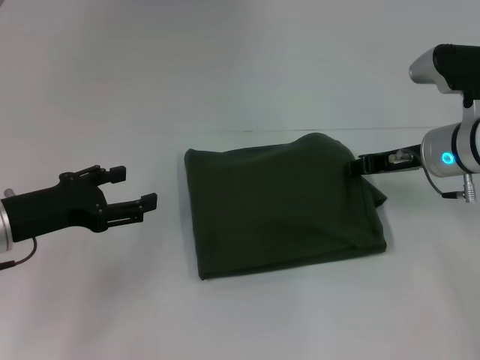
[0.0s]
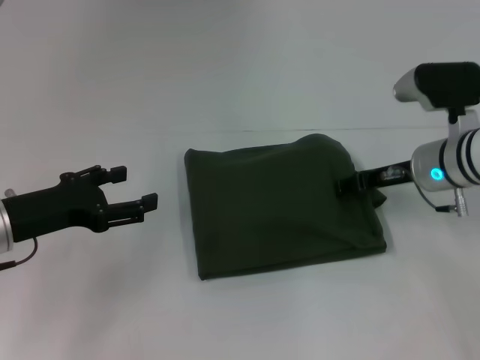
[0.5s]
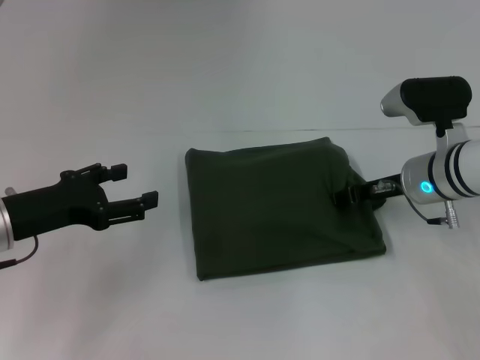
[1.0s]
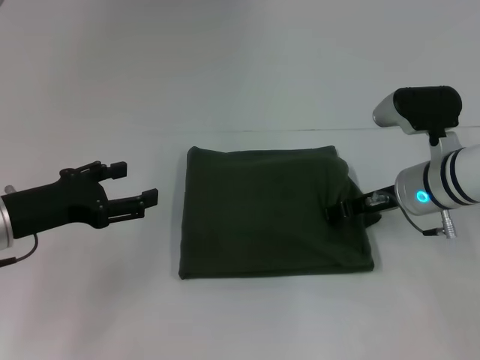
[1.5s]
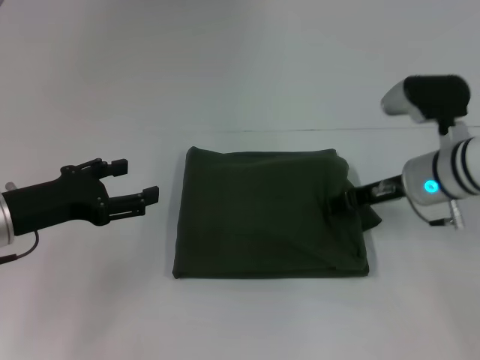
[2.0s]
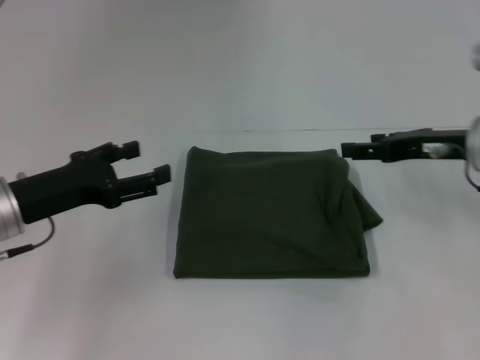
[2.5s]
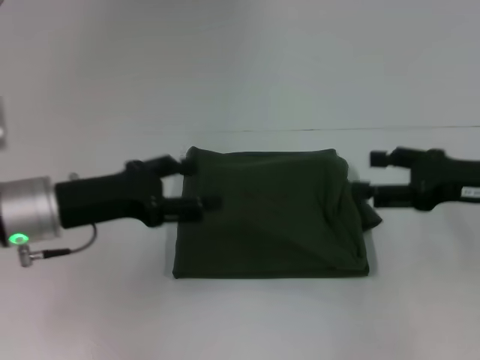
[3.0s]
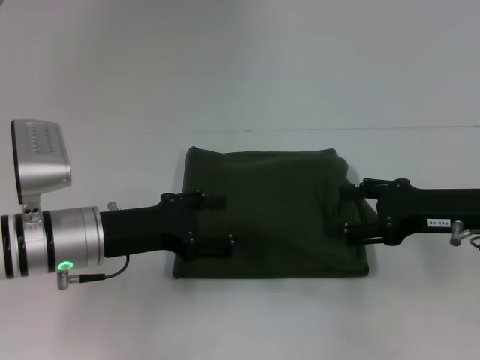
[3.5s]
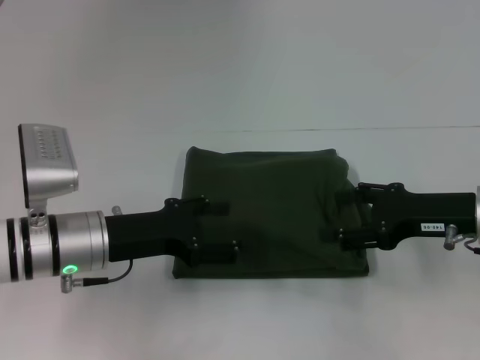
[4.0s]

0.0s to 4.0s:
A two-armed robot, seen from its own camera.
0.0s to 2.0s: The right gripper opens its fingers.
2.0s to 4.0s: The right gripper travels backward and to the right by roughly 10 cm, and opens its fingers. Meanwhile the left gripper moves to the right, about 10 cm.

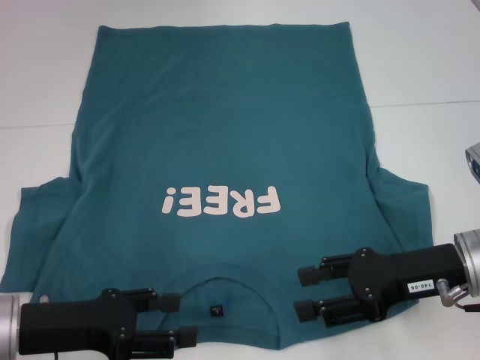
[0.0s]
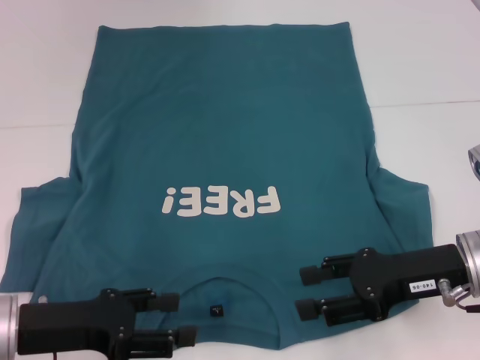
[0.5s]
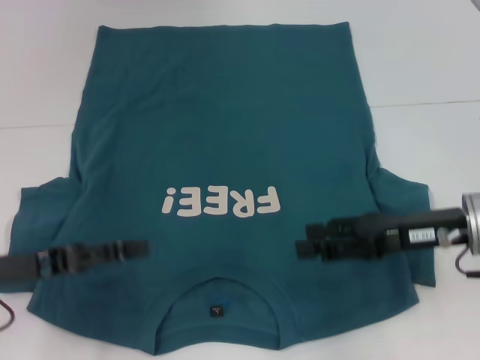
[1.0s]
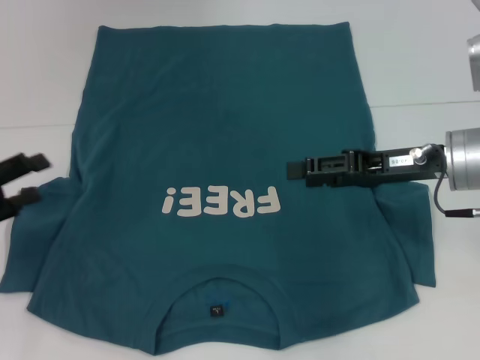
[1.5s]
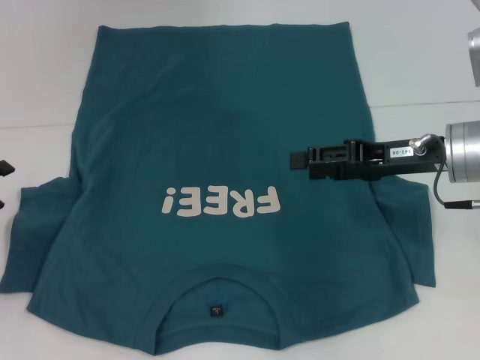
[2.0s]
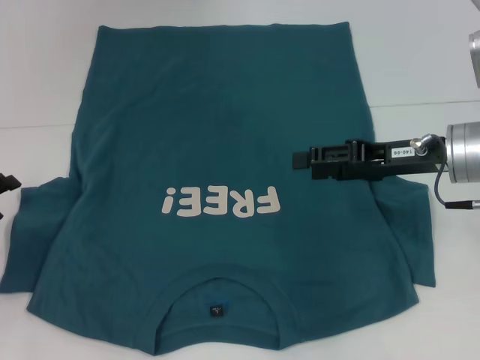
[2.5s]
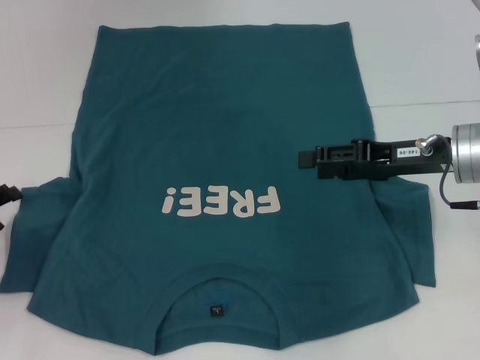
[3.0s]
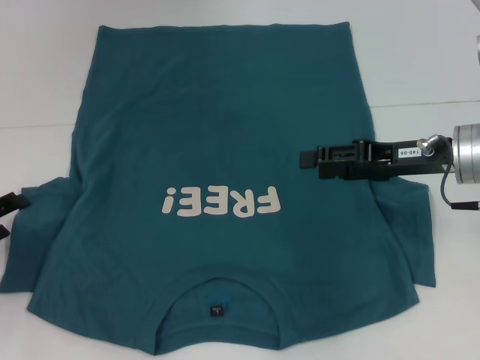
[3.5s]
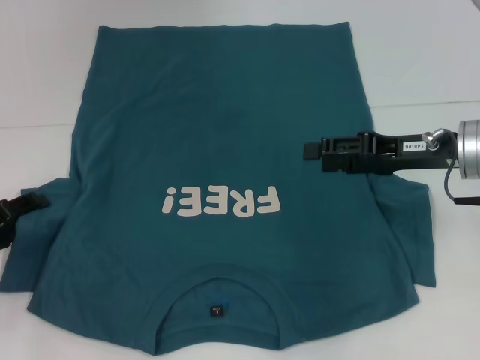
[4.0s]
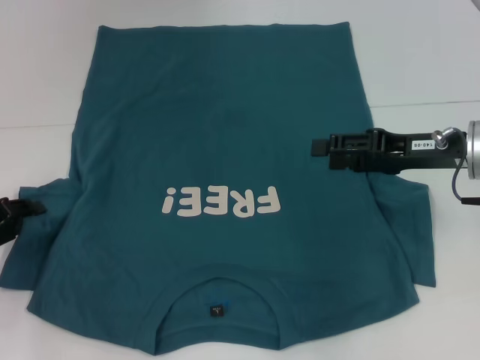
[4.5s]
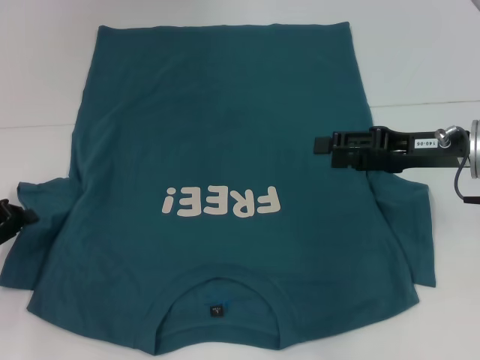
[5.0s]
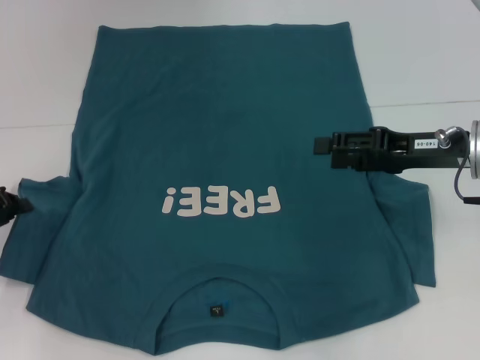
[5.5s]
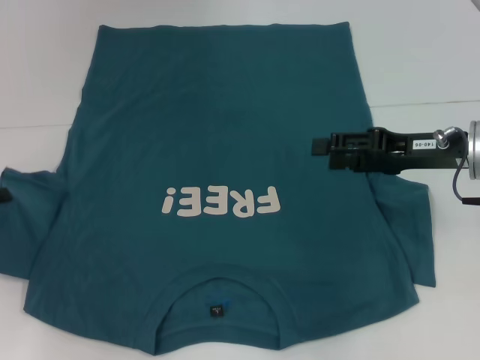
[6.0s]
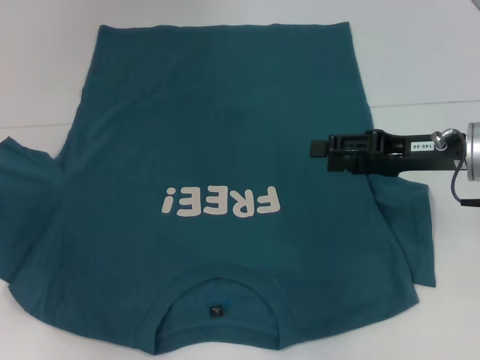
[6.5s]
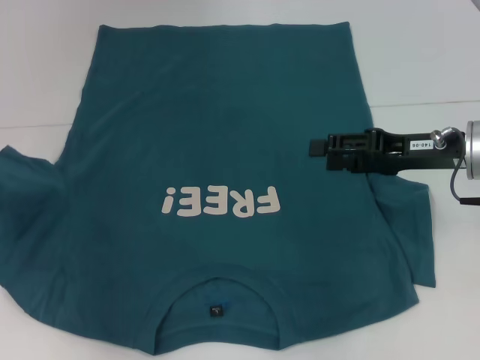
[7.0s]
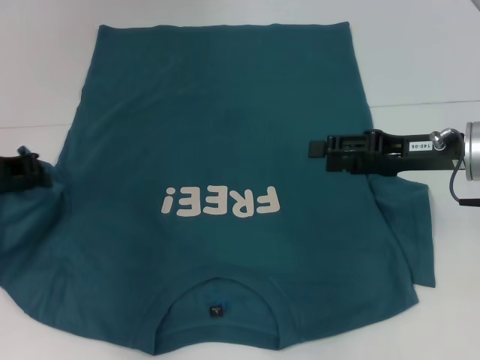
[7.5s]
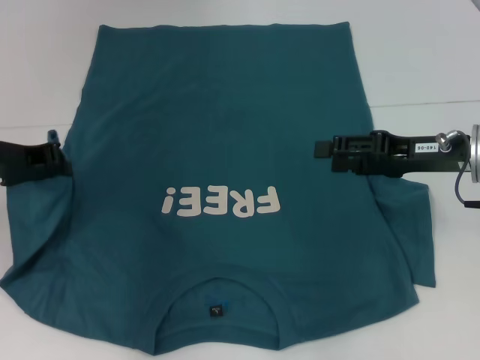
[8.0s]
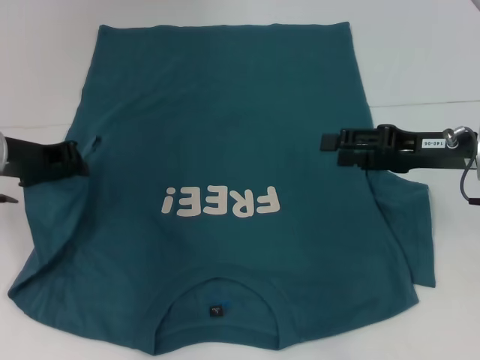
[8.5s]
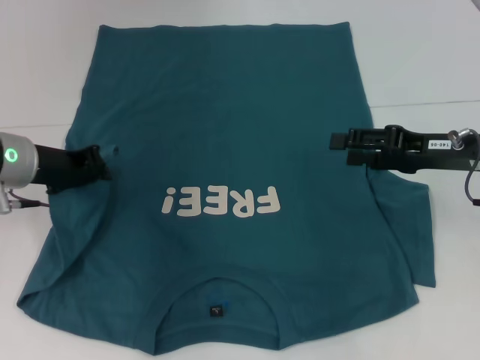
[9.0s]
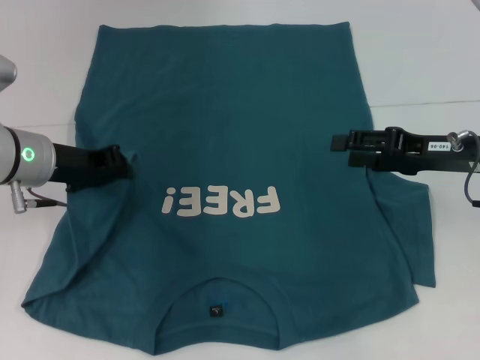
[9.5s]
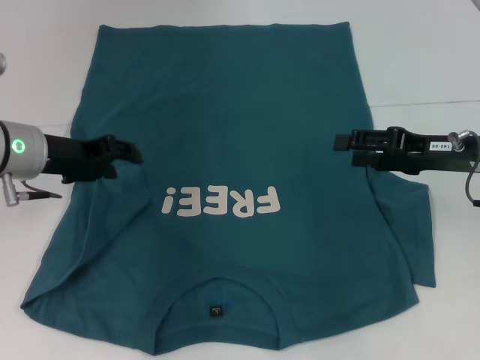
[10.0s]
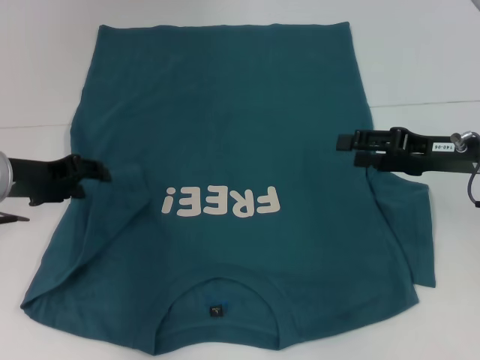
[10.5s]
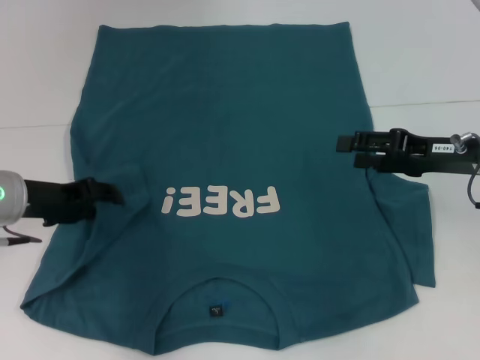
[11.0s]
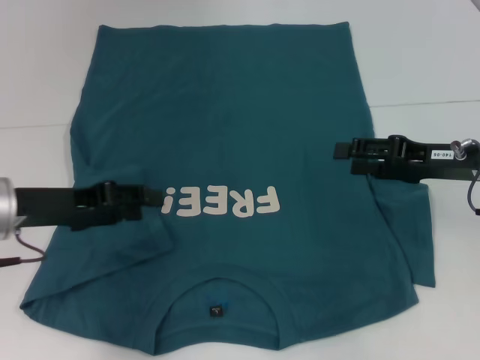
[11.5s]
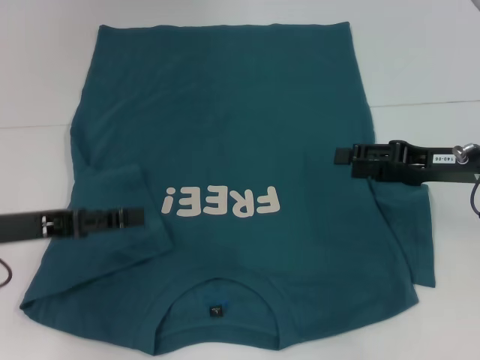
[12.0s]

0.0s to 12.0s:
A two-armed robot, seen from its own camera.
Step, 0.0s to 11.0s: Fold the bottom left sleeve with your left hand.
0.0s to 2.0s: The left gripper heads to the left and forward, covering some 15 cm. The right gripper heads forward, covering approximately 10 cm.
2.0s to 4.0s: The grippers stay close to where they were, moving slightly.
4.0s to 6.0s: The left gripper shifts by roughly 5 cm, and closes its fingers.
6.0s to 8.0s: The left gripper moves to the right and upward, roughly 10 cm.
8.0s to 10.0s: The left gripper opens.
10.0s to 12.0s: The left gripper travels backward by some 10 cm.

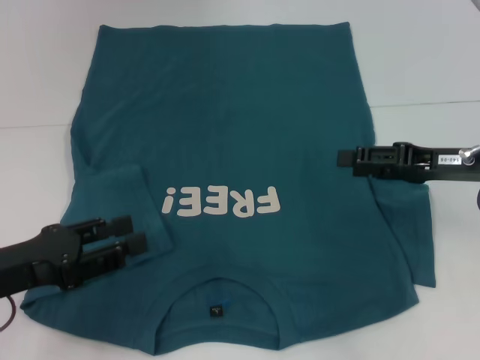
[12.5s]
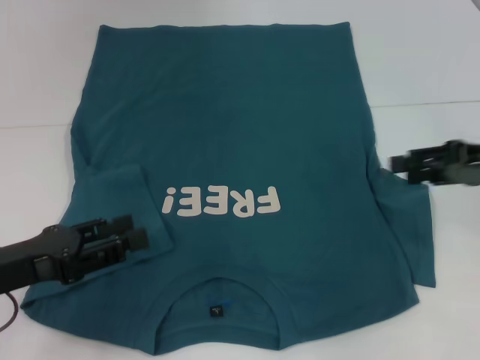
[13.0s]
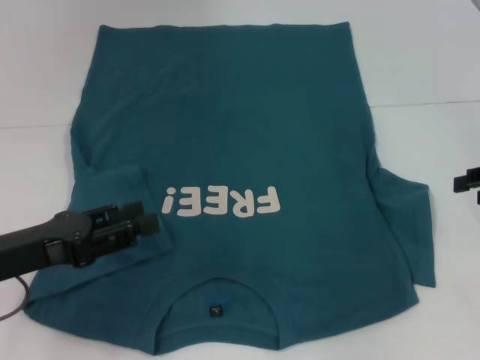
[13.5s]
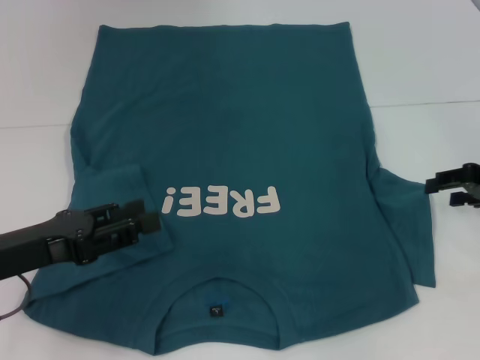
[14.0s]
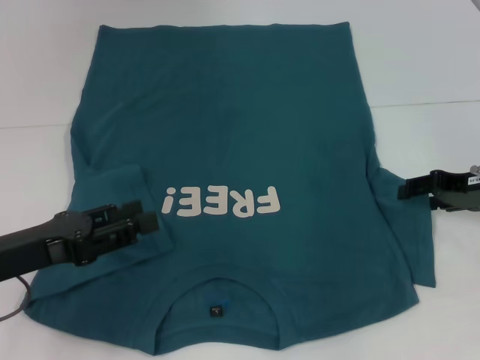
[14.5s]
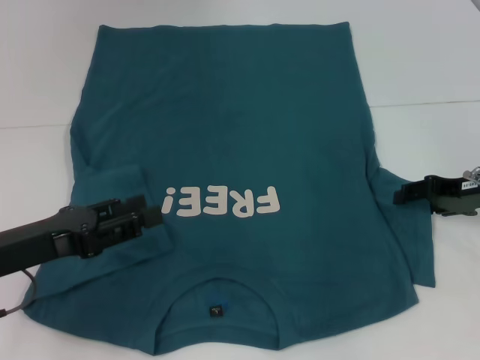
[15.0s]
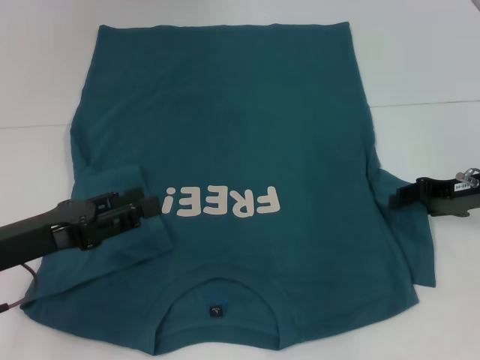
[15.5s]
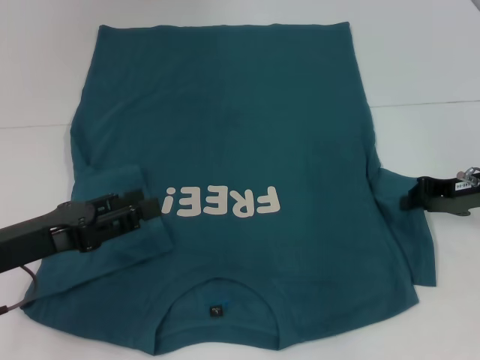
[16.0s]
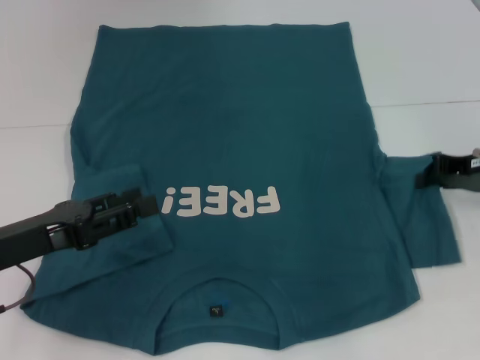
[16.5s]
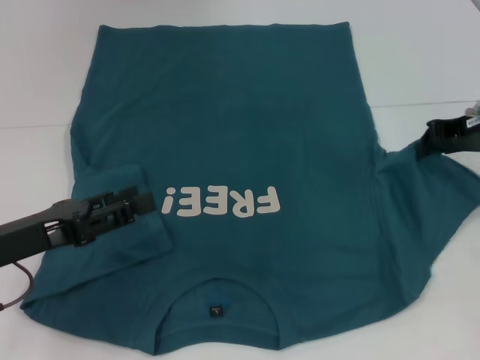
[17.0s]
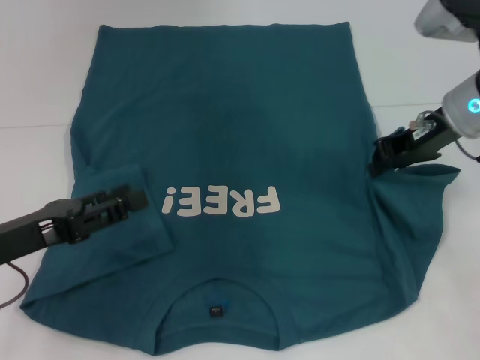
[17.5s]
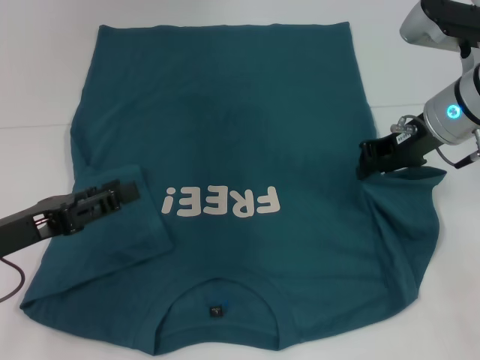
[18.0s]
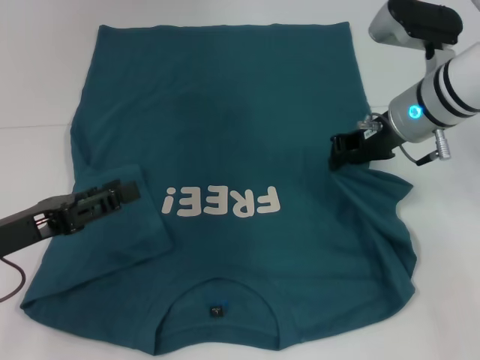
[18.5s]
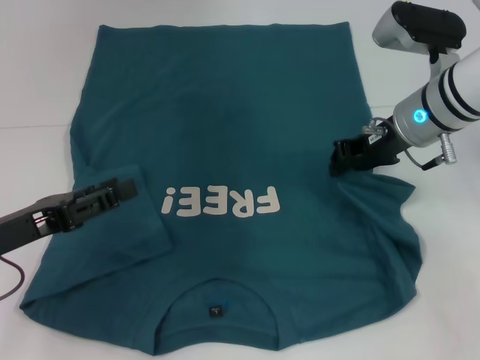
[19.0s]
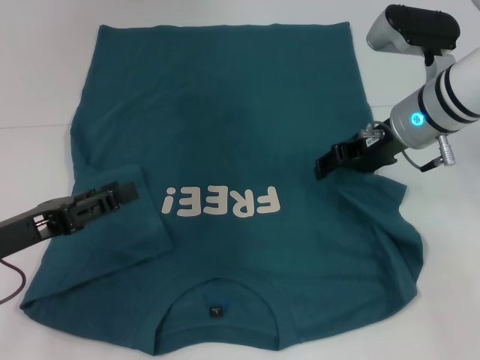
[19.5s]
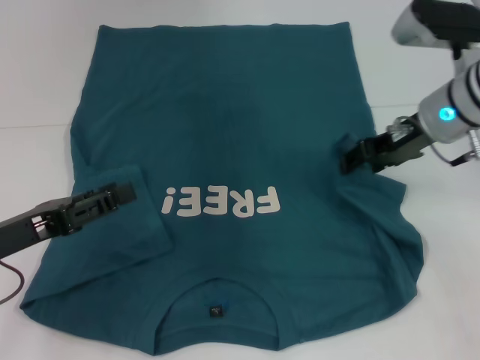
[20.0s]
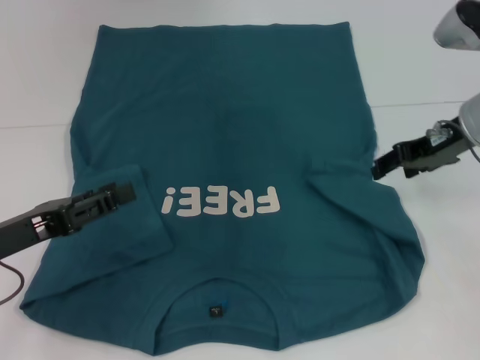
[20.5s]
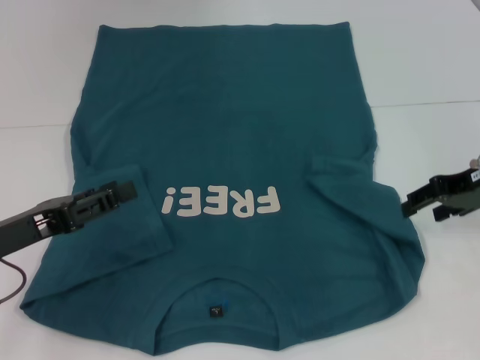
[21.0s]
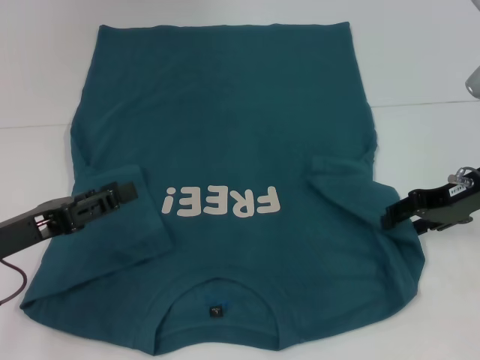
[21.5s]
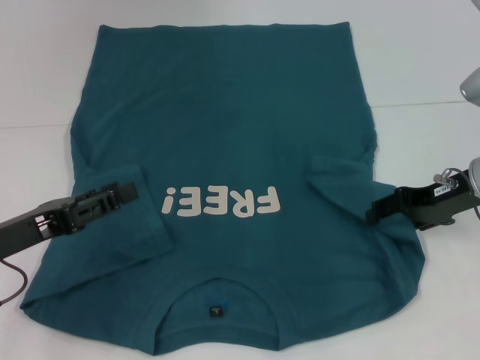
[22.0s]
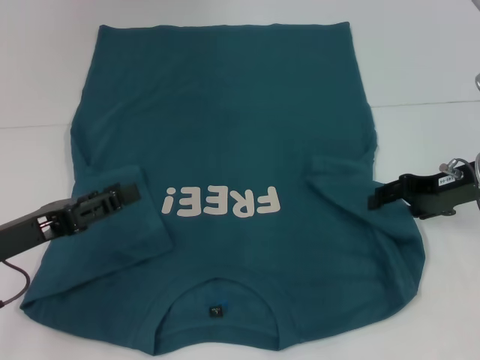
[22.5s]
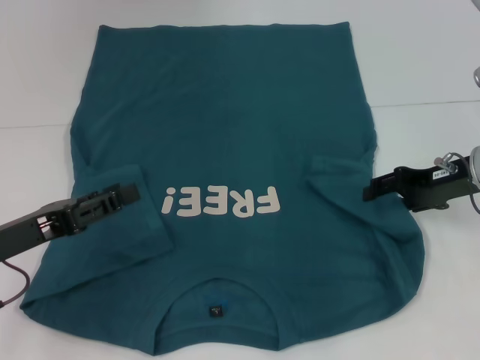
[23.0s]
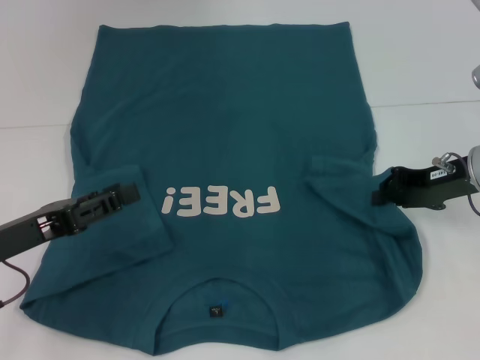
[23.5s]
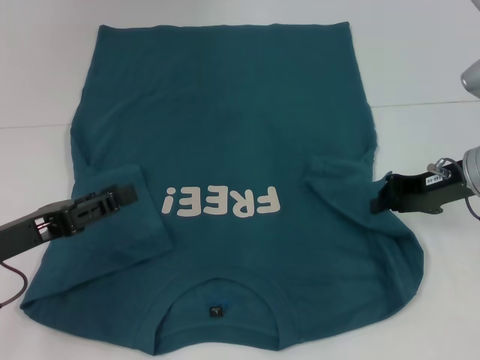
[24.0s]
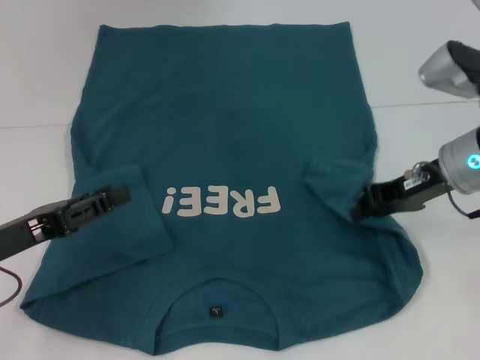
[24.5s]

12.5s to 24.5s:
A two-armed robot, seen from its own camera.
14.5s to 16.5s: The right gripper closes its fingers.
16.5s to 18.5s: The right gripper shifts some 15 cm to the left and forward.
18.5s to 20.5s: The right gripper is displaced to the right by approximately 5 cm, and opens up.
20.5s to 22.5s: The right gripper moves some 5 cm.
22.5s to 24.5s: The right gripper ends up some 5 cm from where it was, and closes.
